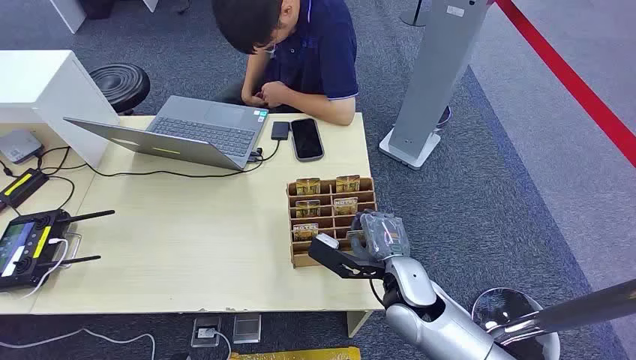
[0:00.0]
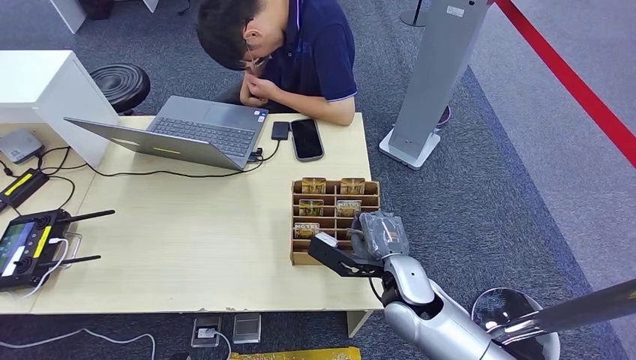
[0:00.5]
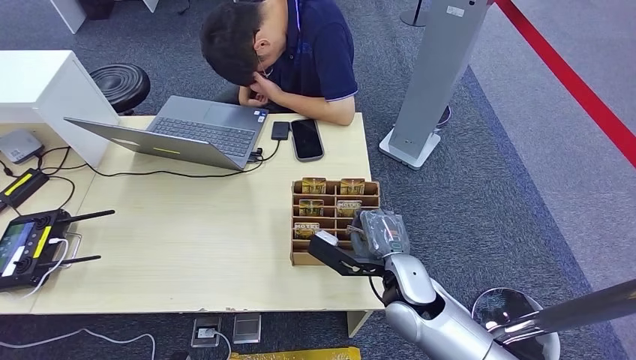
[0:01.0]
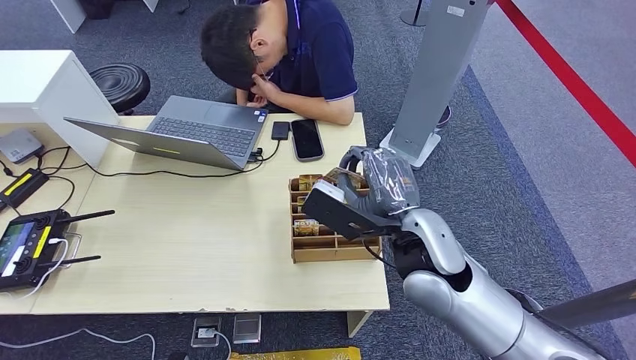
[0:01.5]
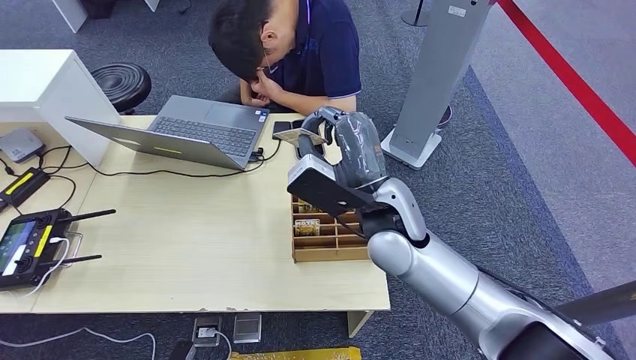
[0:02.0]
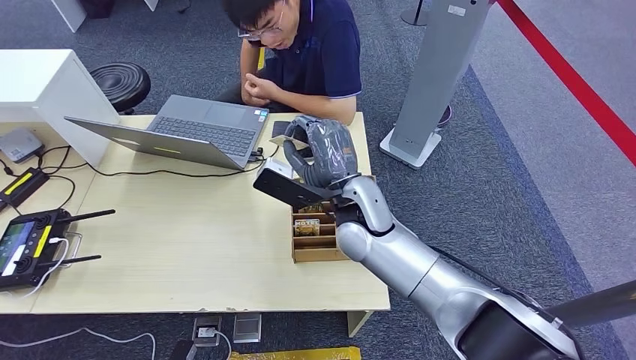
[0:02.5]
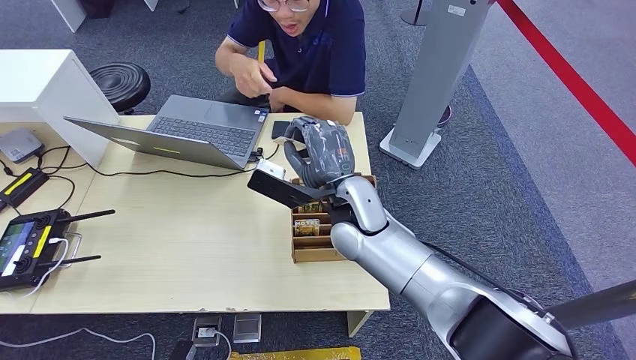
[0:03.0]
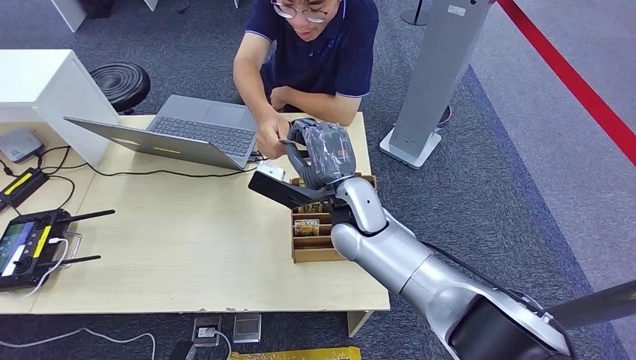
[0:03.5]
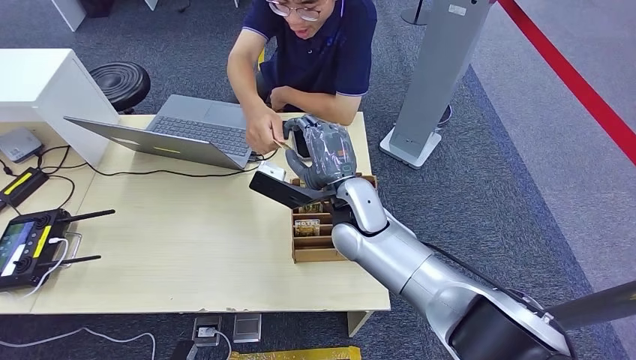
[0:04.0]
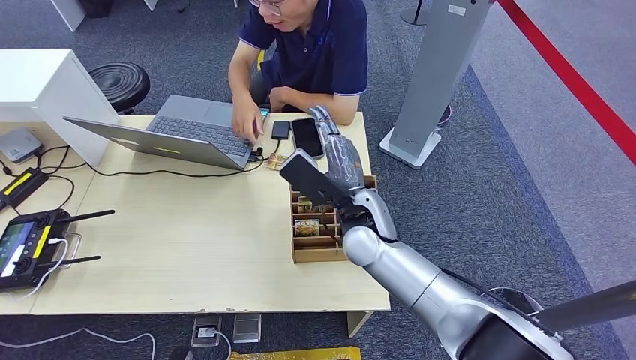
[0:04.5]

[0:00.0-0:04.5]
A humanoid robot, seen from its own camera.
Step, 0:00.0 to 0:01.5: Pick up the room card from the card holder.
Step, 0:02.5 to 0:04.5: Hand the room card to the target.
0:02.0 to 0:04.5: The right hand shifts about 5 cm downward.
